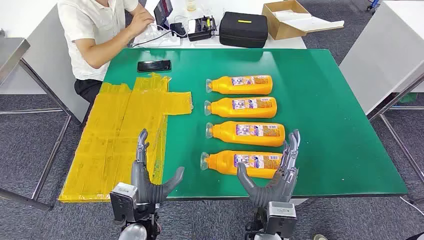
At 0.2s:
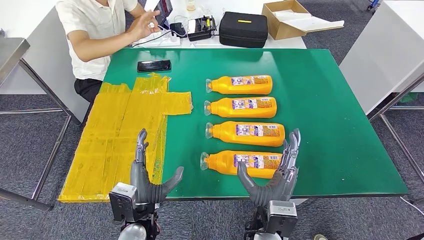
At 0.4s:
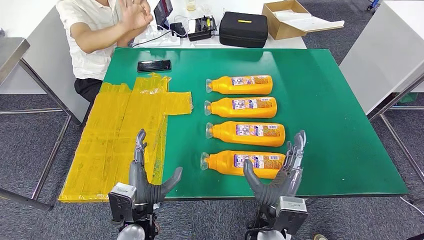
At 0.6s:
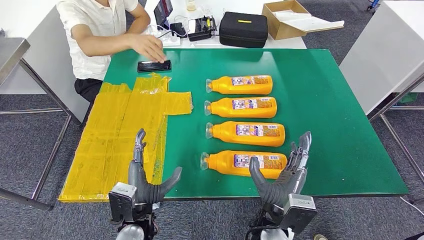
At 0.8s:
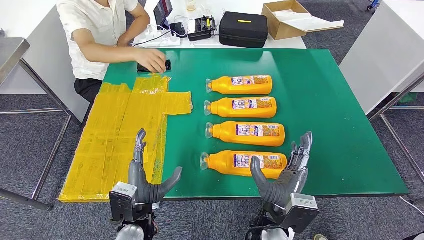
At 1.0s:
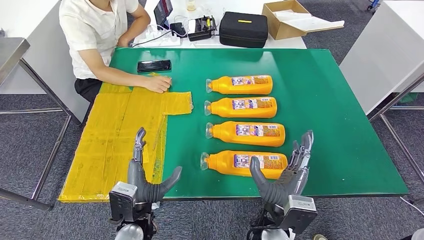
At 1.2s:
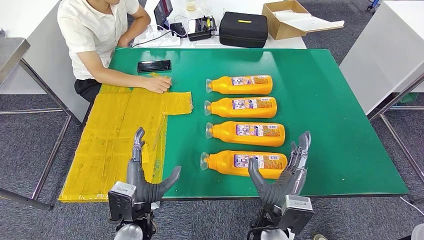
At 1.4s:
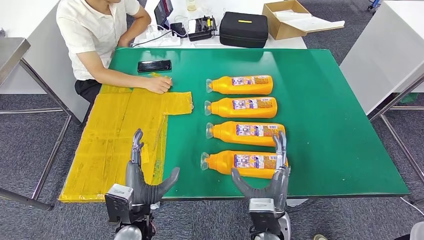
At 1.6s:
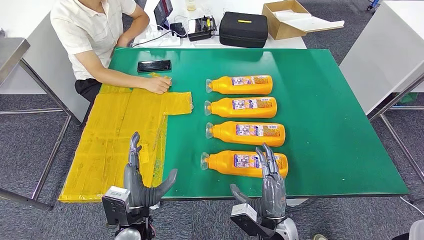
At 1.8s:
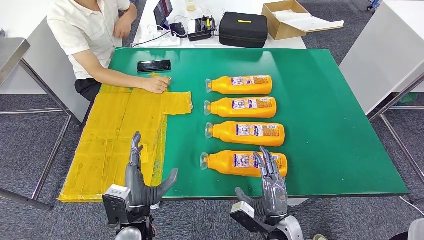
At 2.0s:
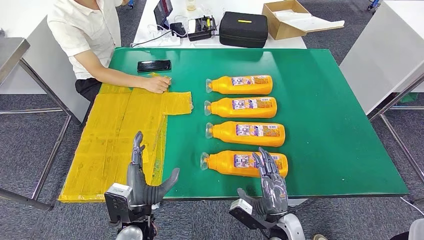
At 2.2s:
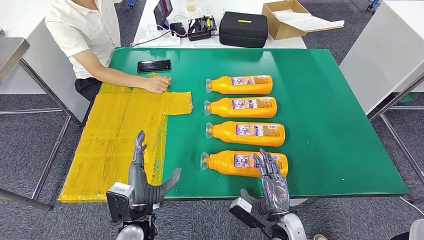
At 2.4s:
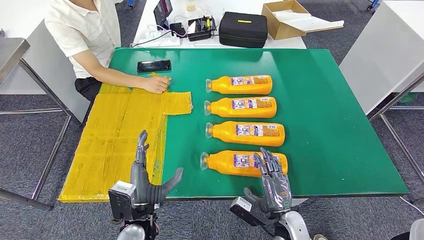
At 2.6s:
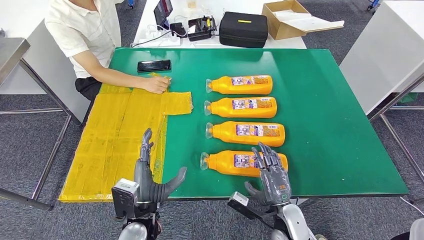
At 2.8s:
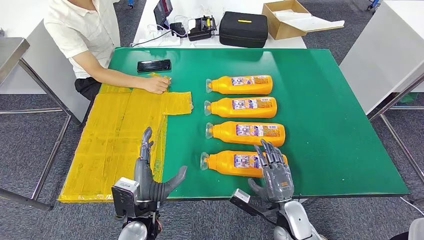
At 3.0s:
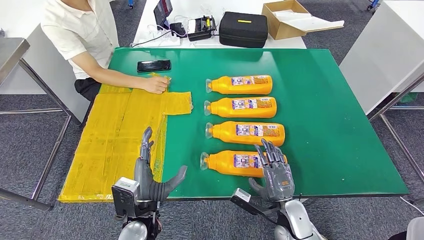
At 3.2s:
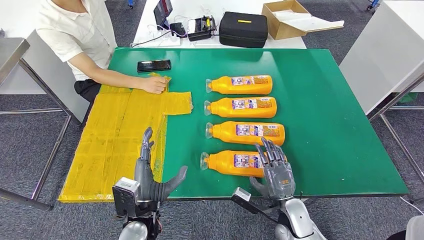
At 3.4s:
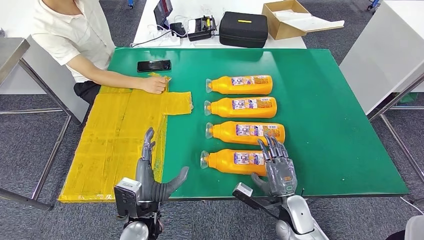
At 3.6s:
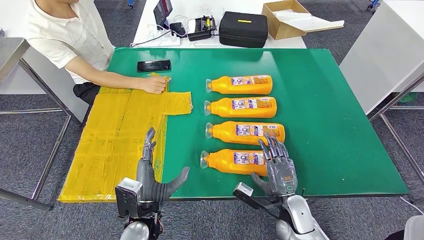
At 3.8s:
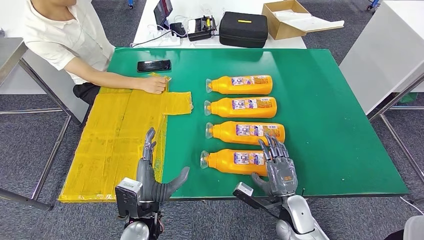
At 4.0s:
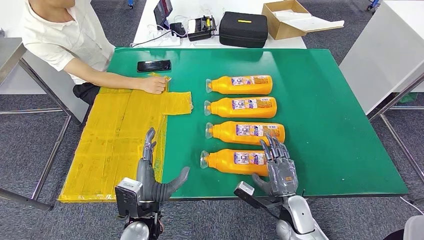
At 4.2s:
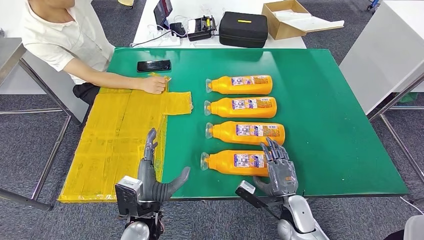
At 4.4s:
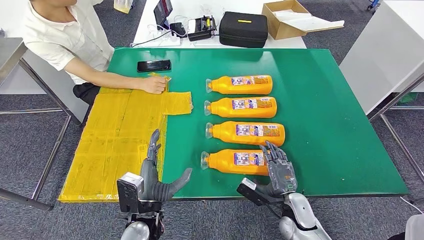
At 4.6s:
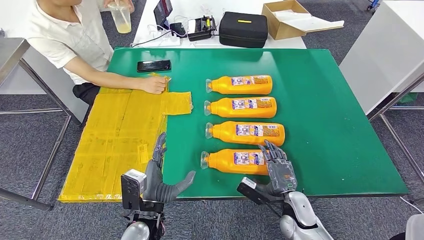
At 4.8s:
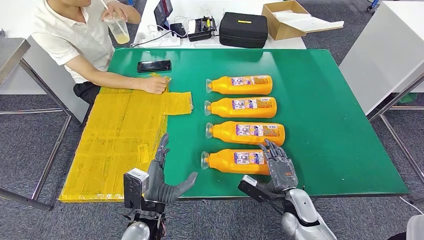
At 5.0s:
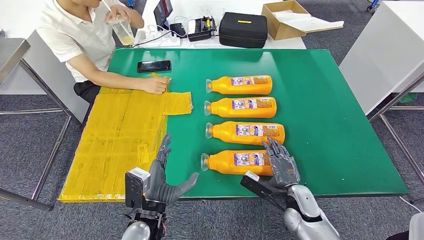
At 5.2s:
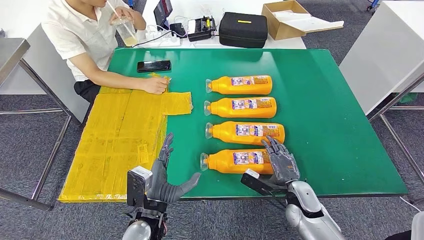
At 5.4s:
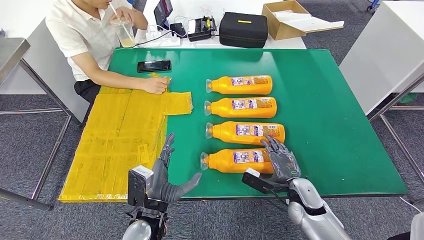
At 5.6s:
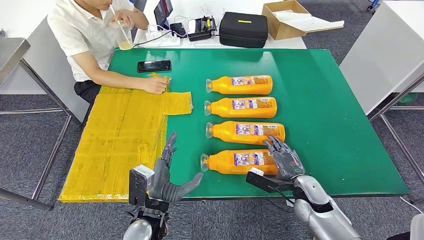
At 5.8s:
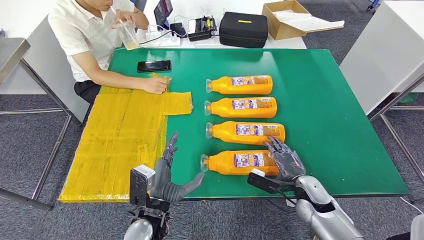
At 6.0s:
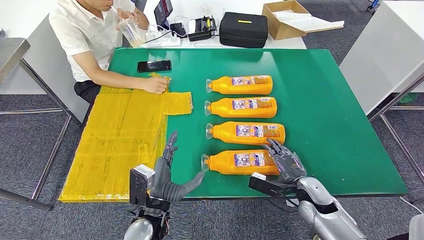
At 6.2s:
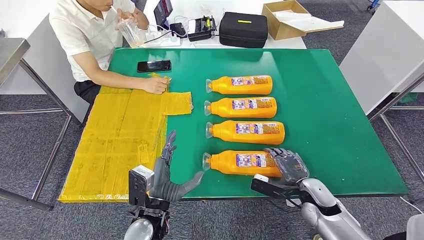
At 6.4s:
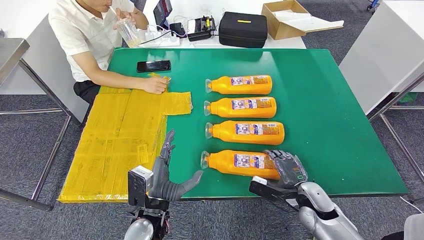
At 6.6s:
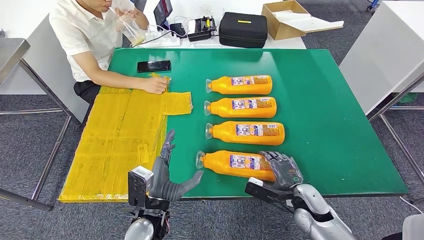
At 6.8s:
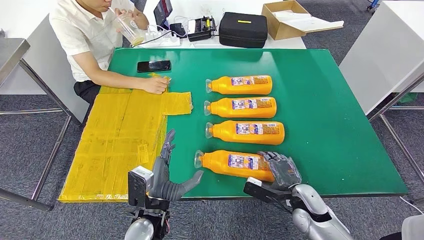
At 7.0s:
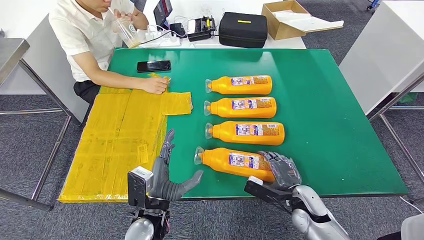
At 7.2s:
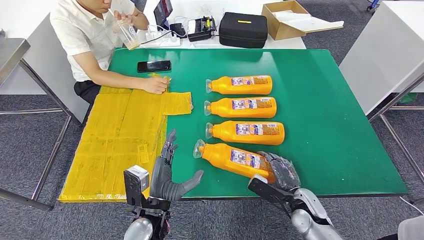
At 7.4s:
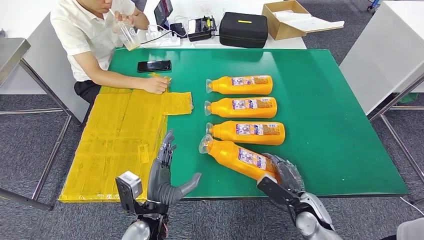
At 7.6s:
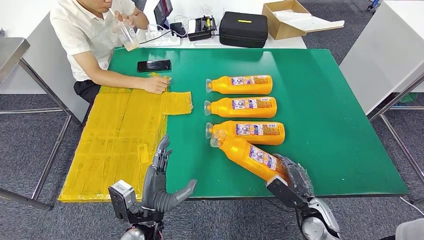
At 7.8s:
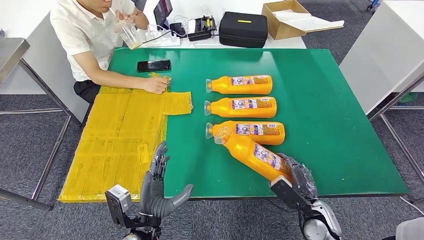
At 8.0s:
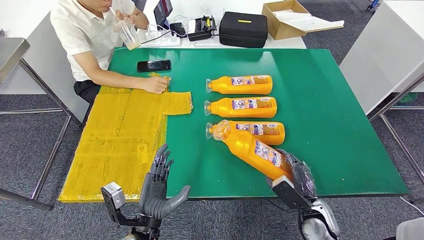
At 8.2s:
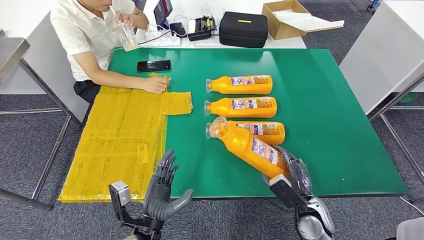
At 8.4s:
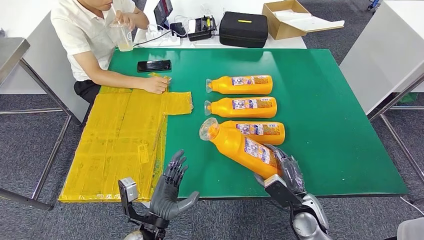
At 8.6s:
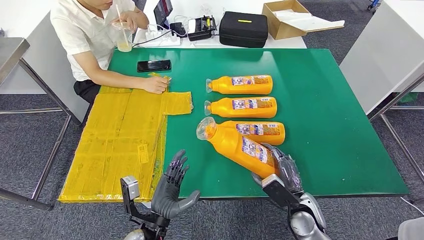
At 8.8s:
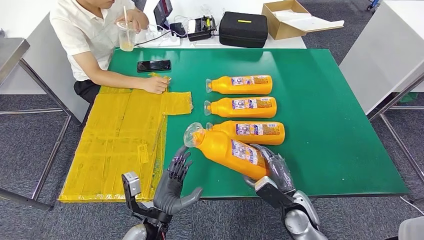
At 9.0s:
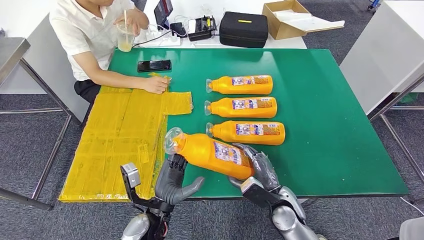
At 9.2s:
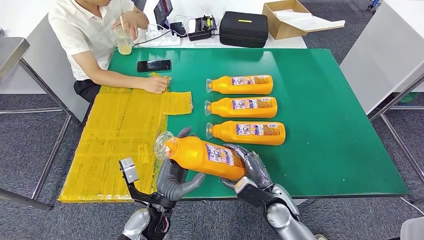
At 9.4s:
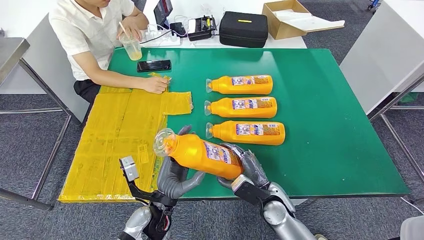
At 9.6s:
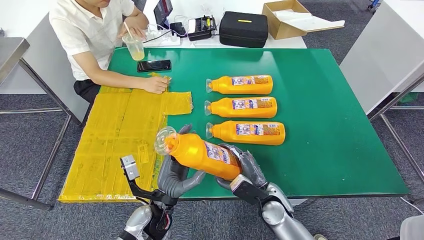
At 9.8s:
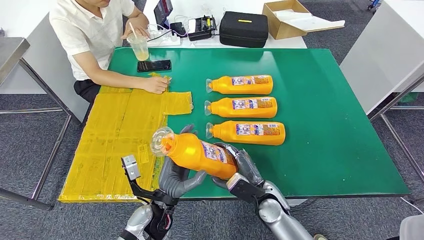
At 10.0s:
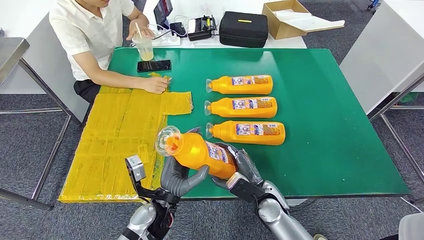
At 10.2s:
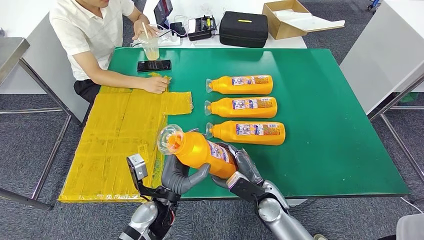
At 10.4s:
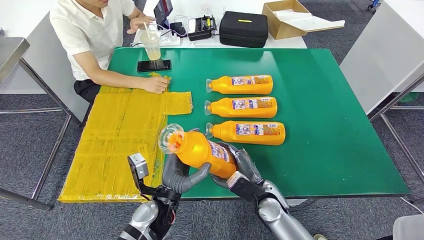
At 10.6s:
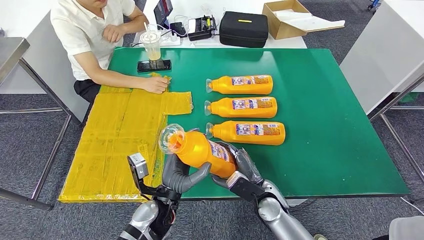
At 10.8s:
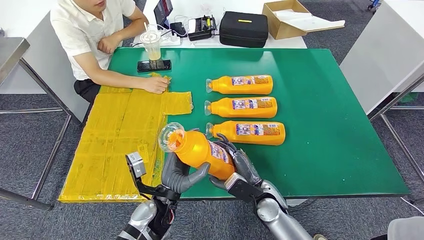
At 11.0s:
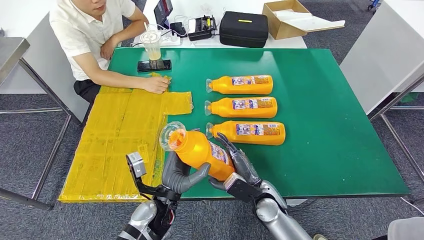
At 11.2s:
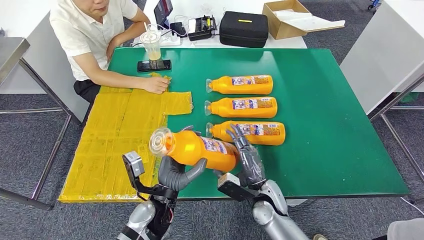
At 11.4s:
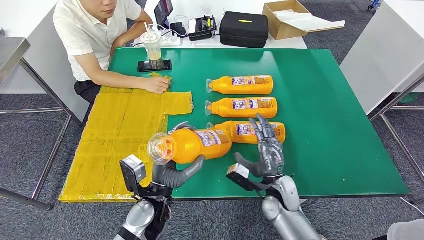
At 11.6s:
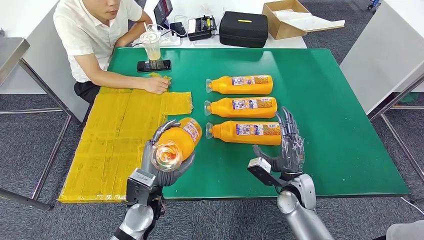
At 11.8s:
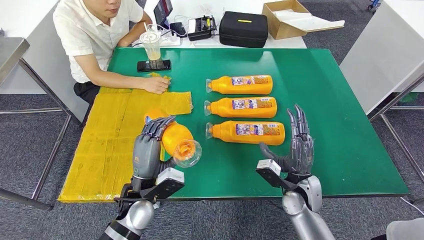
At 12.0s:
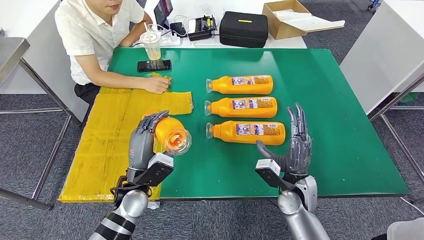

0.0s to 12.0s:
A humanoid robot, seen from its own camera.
Step, 0.0s to 9.0s: Take the fast-moving consumer goods bottle from the table.
1.6s to 3.0s: The right hand goes some 5 cm to the right.
3.0s to 4.4s: The hands move only a little.
4.4s to 6.0s: The right hand moves to the right, about 5 cm.
7.6s to 9.0s: The right hand shifts about 10 cm to the left.
9.0s to 10.4s: There are only small adjustments of the hands.
10.4s to 12.0s: The left hand is displaced to the left by roughly 5 cm; the right hand moves to the right, about 5 cm.

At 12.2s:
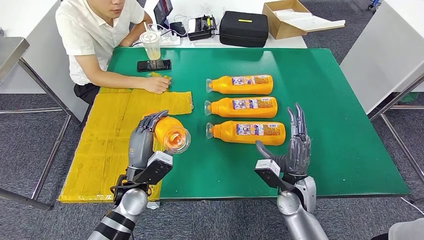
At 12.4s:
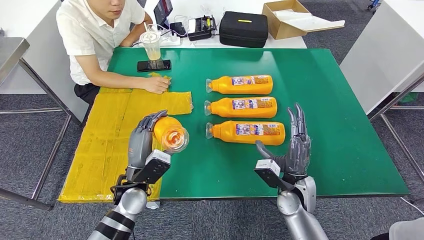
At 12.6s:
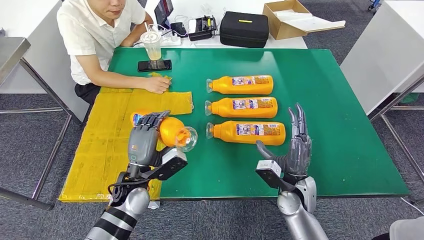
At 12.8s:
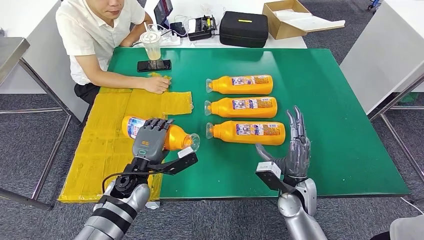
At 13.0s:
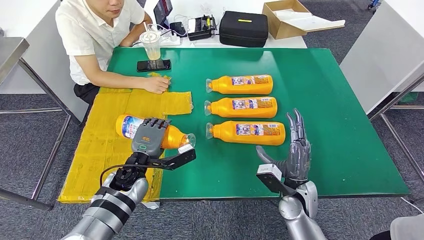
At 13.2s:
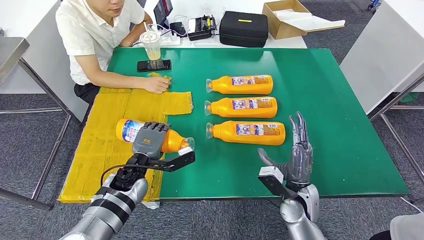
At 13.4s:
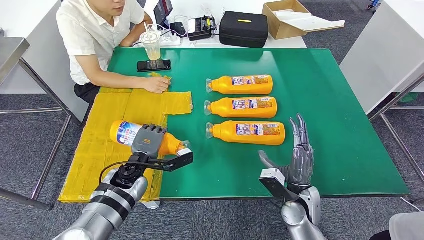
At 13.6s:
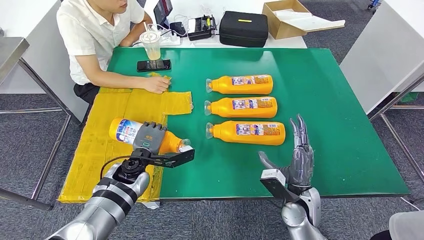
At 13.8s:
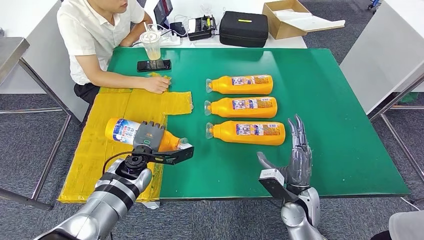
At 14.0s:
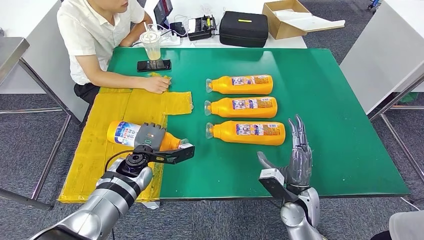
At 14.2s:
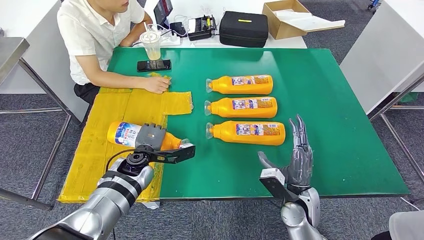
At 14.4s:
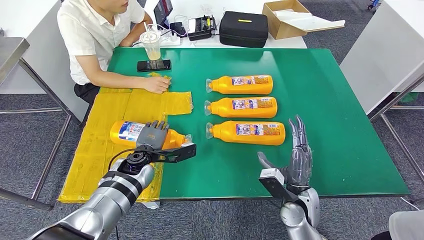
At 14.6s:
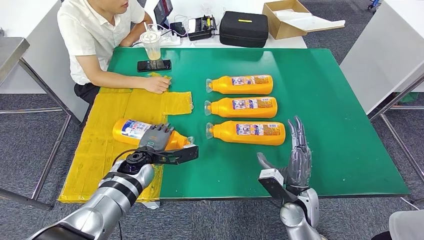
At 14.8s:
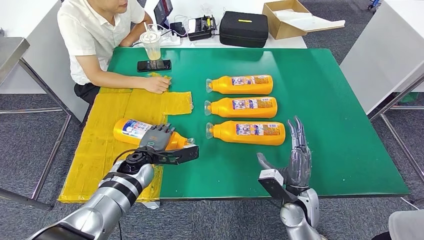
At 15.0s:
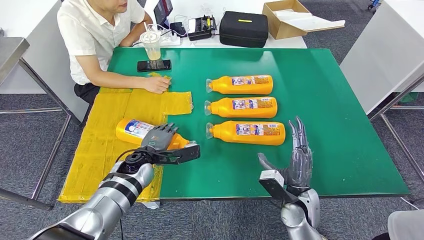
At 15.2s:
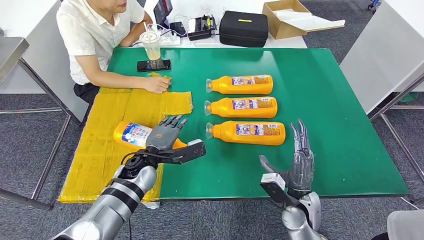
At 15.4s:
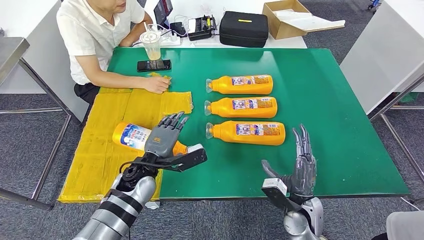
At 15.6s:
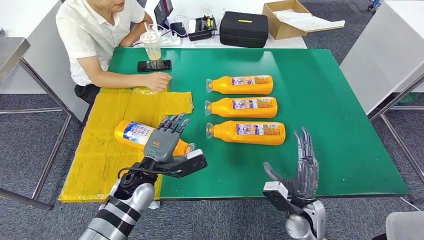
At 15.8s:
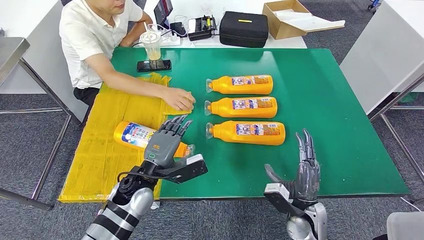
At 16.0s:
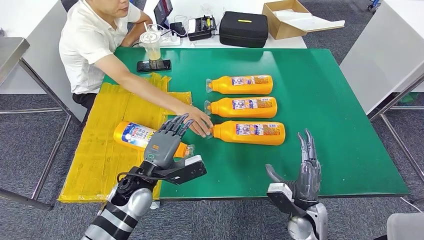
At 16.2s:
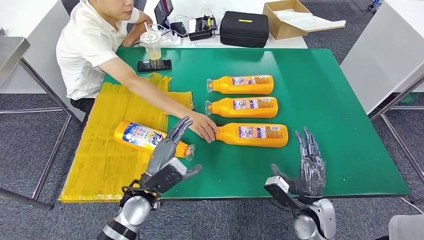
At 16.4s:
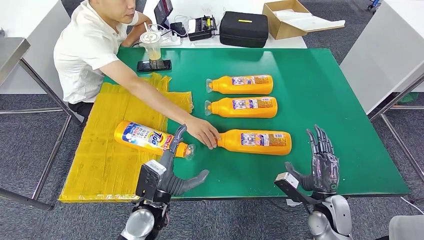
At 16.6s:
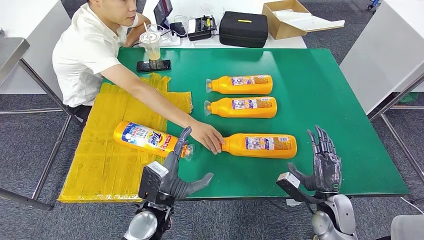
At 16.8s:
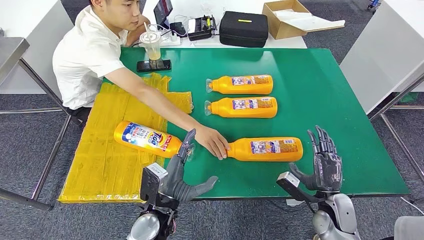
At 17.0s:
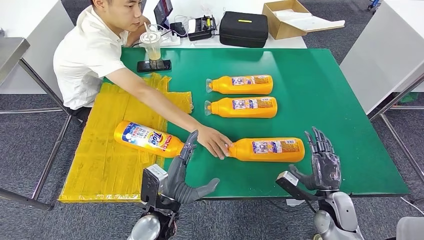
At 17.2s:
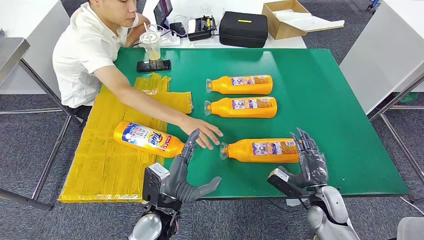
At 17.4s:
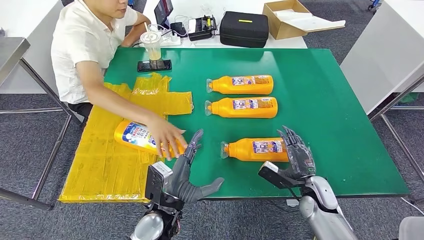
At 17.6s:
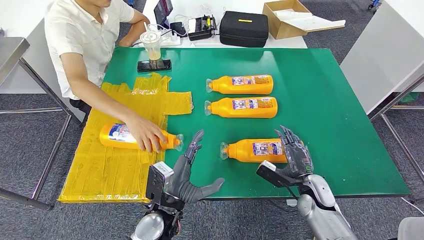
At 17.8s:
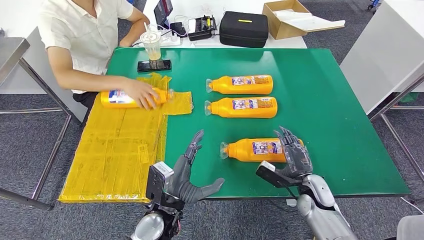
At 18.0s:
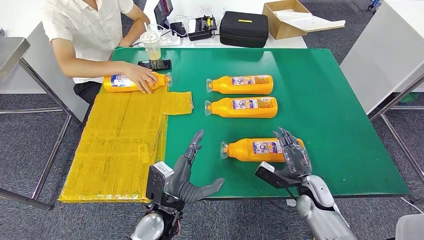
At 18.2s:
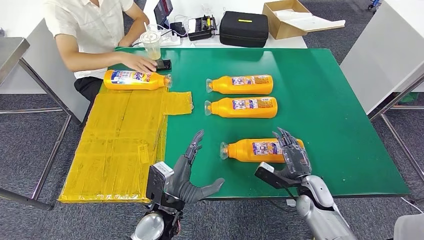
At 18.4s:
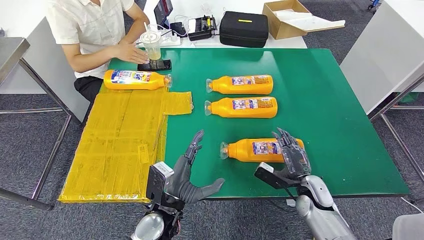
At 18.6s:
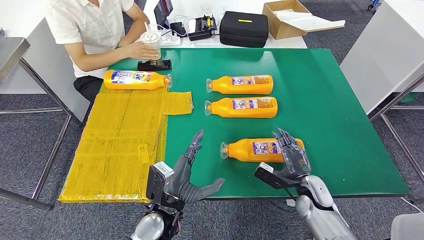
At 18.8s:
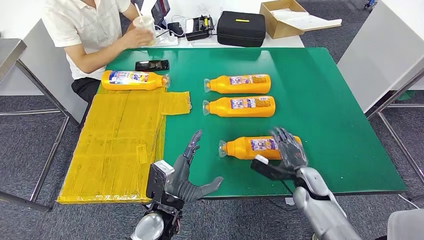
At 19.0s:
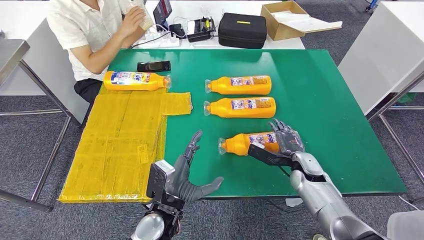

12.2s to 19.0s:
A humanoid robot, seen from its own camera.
Step, 12.2s to 14.2s: Flip the fast-moving consumer goods bottle to the front side.
12.2s to 13.6s: The left hand travels forward by some 5 cm.
13.6s to 15.0s: There are only small adjustments of the hands.
15.0s to 16.2s: The left hand travels backward by roughly 10 cm.
